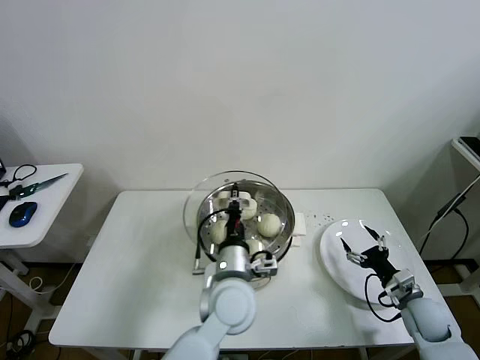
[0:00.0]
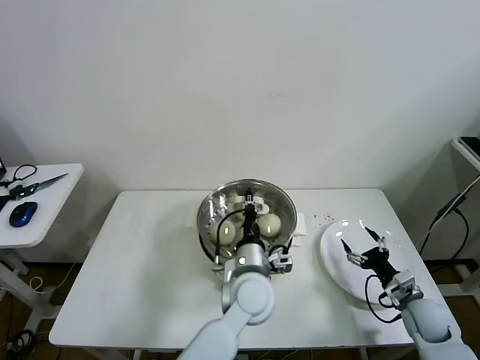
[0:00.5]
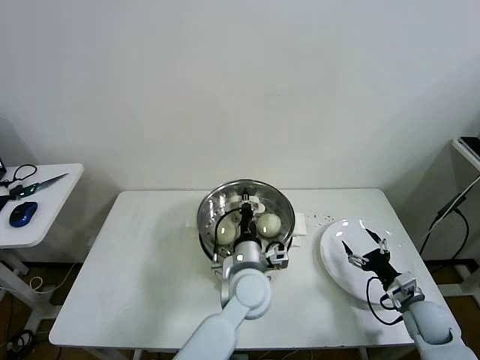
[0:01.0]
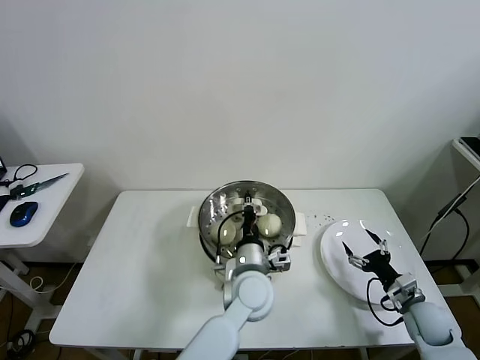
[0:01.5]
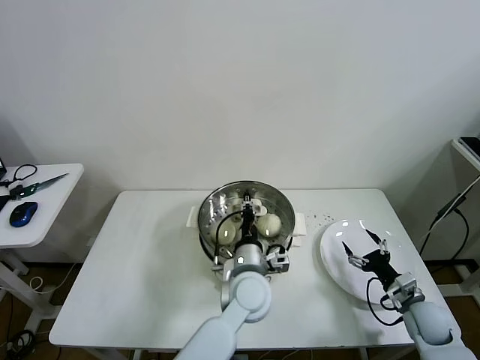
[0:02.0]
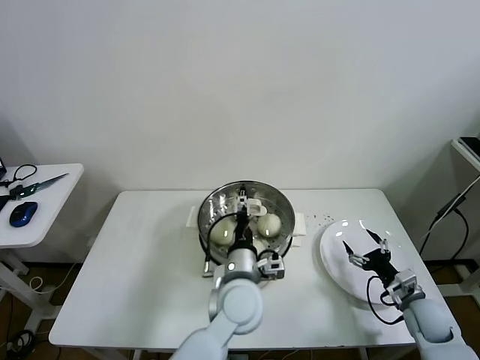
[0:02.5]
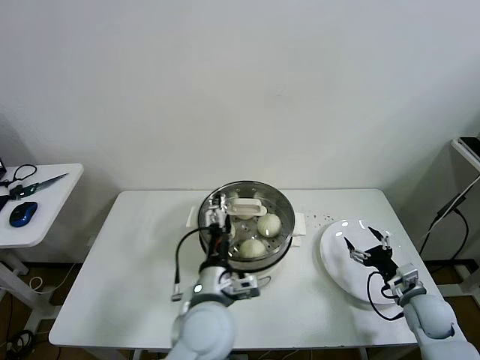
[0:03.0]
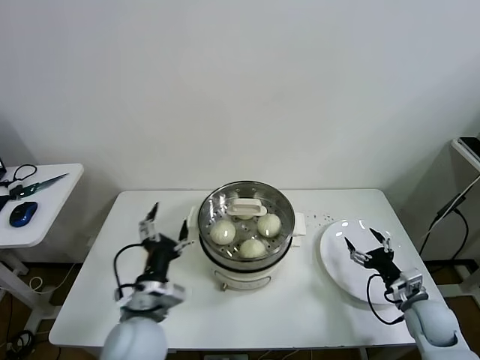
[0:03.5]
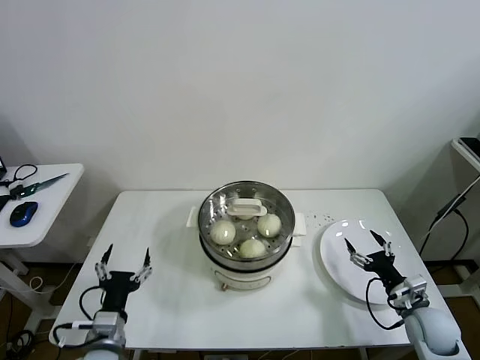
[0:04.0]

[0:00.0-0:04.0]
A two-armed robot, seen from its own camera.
Task of the whole recording: take steamed baozi put them in steamer then cover it.
Step, 0:00.0 to 0:02.0: Place the pot lid on the steamer with left gripper.
0:00.0 to 0:02.0: The left gripper moves roughly 5 cm.
0:02.0 to 0:04.0: The left gripper shifts approximately 30 cm to the left and backward, and opens up.

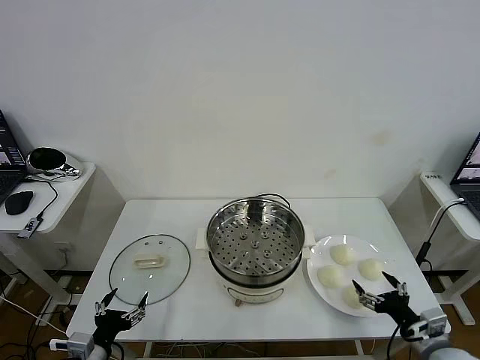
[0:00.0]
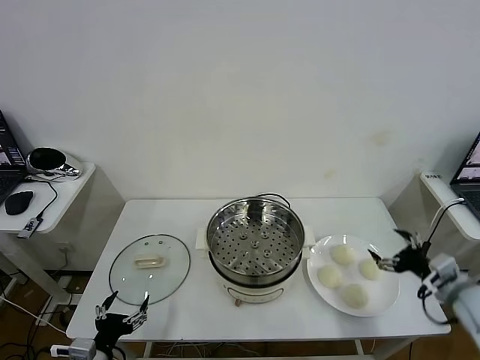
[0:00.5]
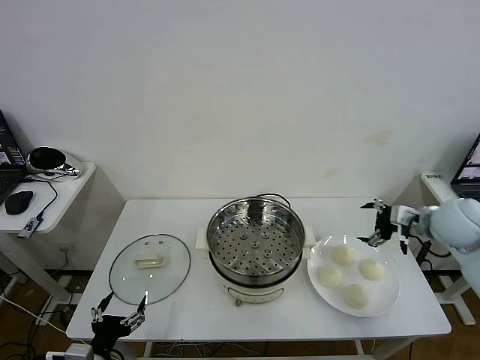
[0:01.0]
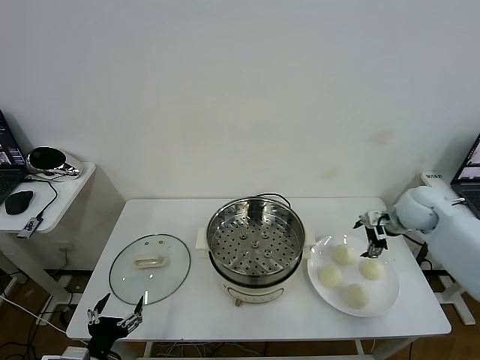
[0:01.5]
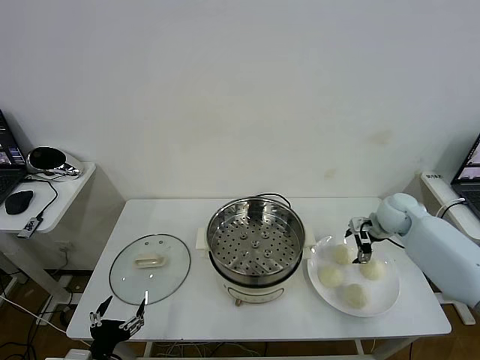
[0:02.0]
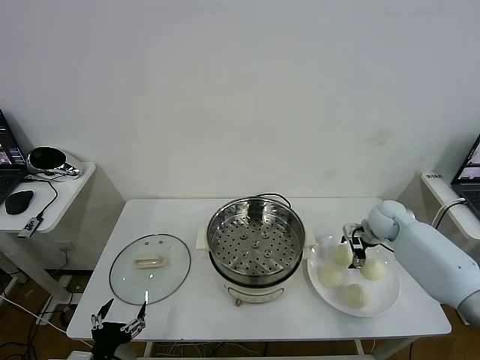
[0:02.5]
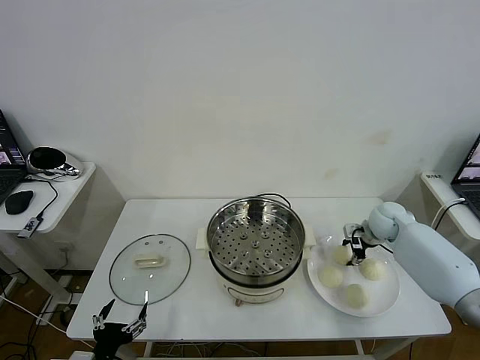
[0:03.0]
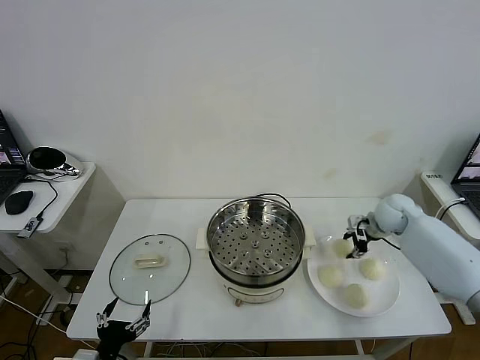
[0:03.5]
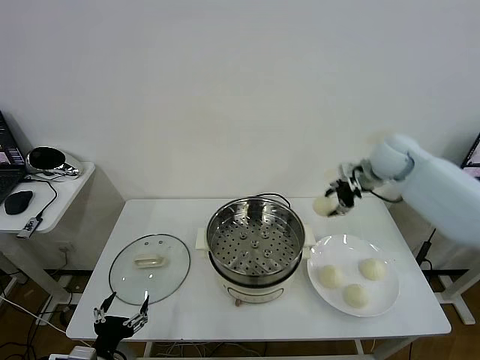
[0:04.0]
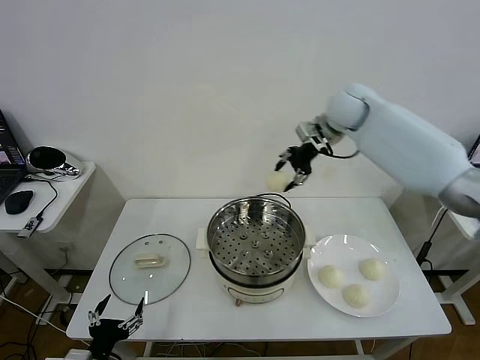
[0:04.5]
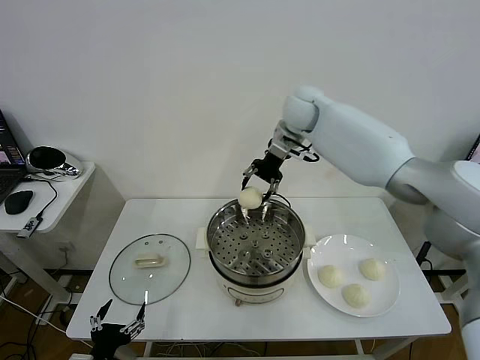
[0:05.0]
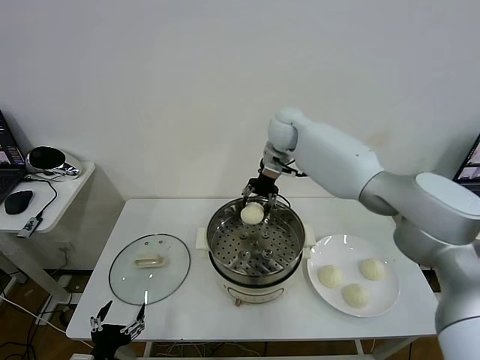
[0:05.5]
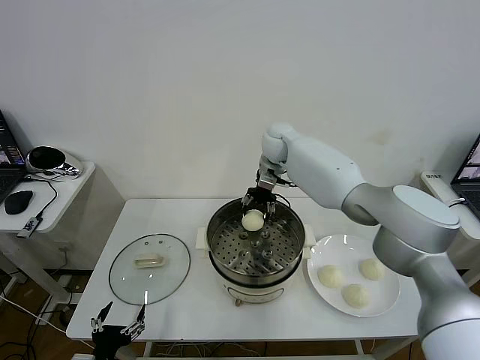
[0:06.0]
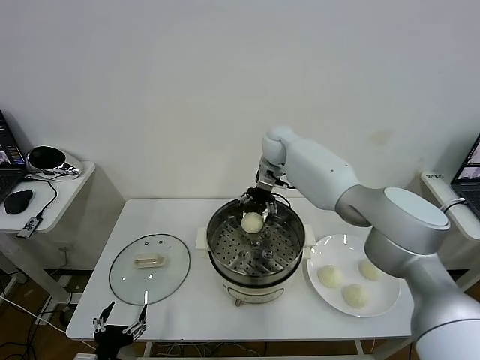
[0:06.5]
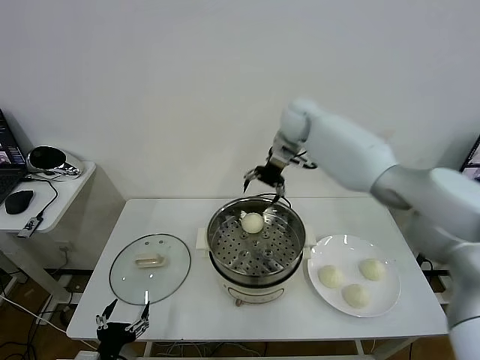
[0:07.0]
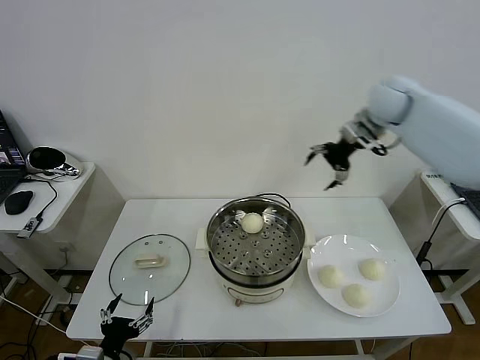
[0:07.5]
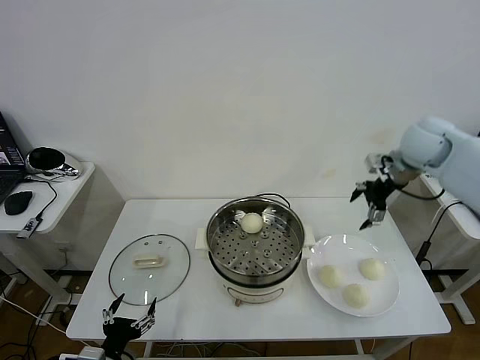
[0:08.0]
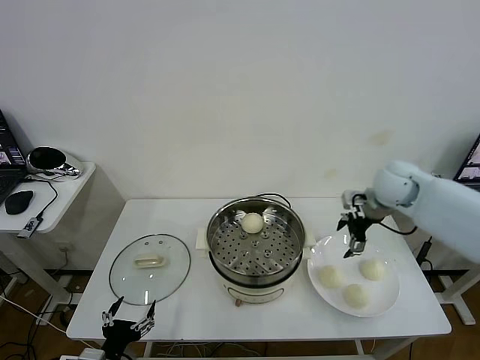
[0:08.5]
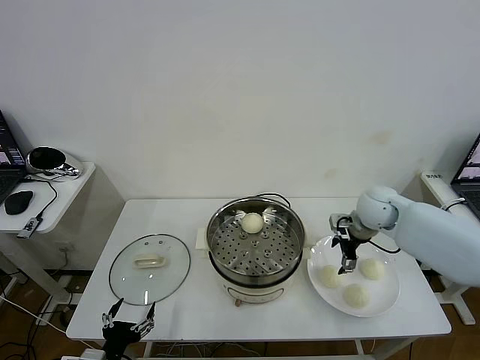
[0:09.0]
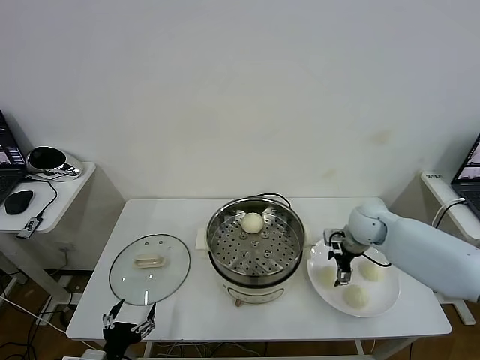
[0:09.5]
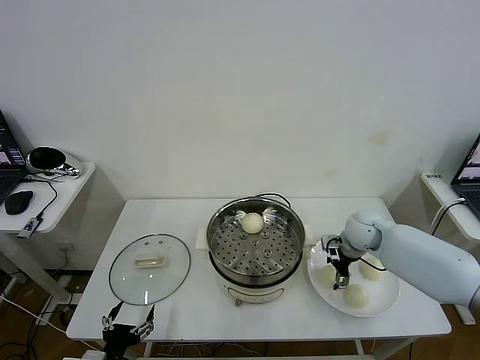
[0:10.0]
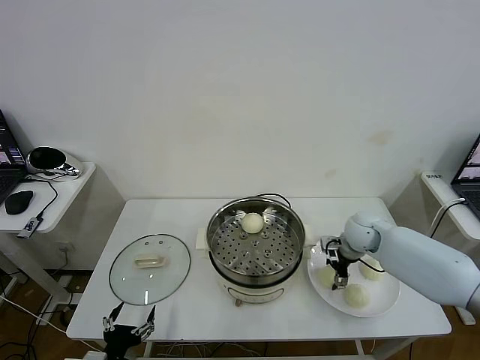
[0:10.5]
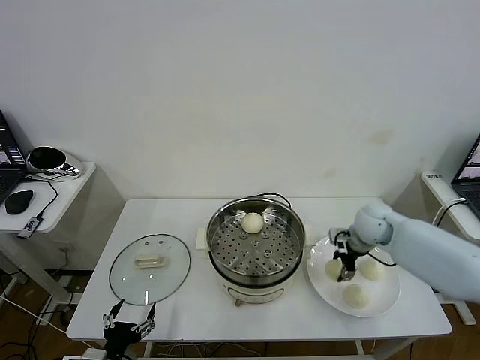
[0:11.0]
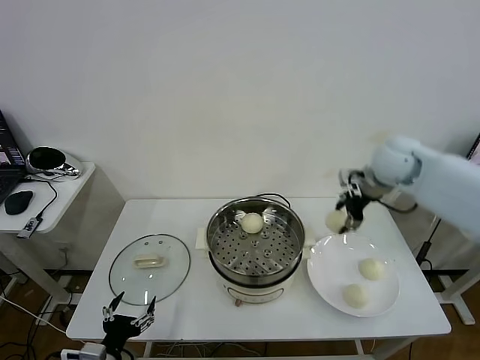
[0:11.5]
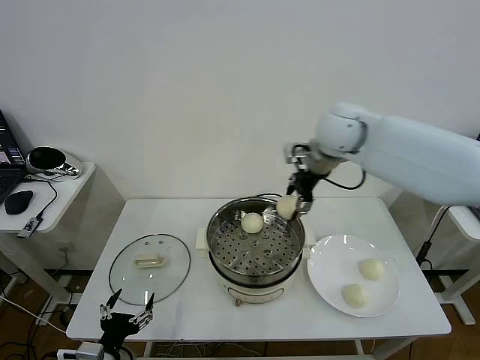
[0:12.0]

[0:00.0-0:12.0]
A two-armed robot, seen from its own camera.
Task of the whole recording: take steamed baozi put them in steamer then cover it.
Step, 0:00.0 to 0:03.0: Grasp the baozi in the plate with right gripper.
Step, 0:03.5 to 0:06.5: Place the baozi on the steamer with right gripper.
Step, 0:07.0 to 0:10.5: Grasp the baozi in the plate with right gripper.
0:02.0 to 0:04.0: The right gripper is displaced upward and to the left by approximately 25 cm, and closes up.
0:04.0 to 0:06.0: The right gripper is displaced to the left by about 20 cm.
0:06.0 to 0:08.0: The right gripper shifts some 30 cm to the right and backward, and opens its fingers.
0:08.0 to 0:10.0: The right gripper travels downward by approximately 20 cm.
0:10.0 to 0:12.0: The right gripper shifts about 30 cm upward and to the left, and closes.

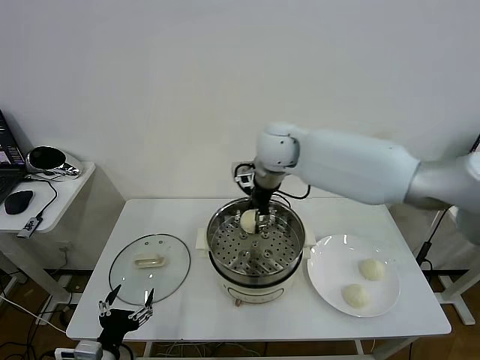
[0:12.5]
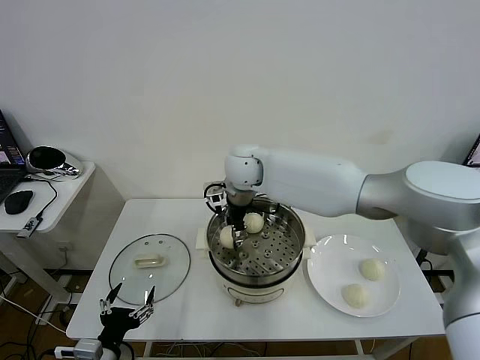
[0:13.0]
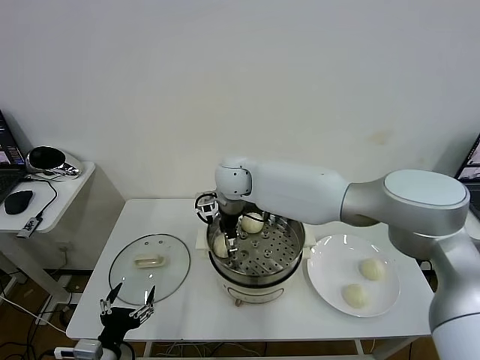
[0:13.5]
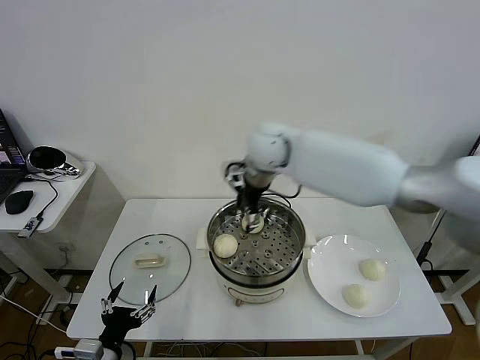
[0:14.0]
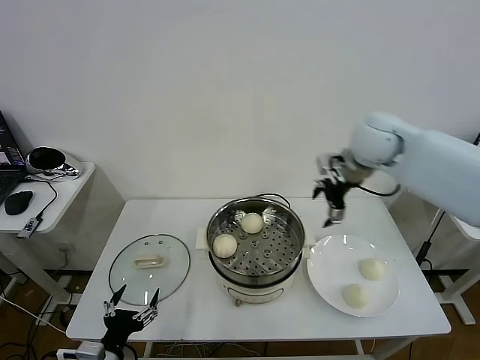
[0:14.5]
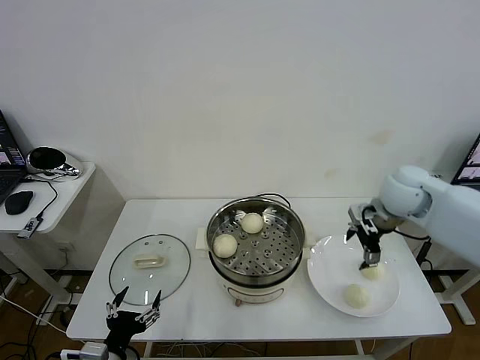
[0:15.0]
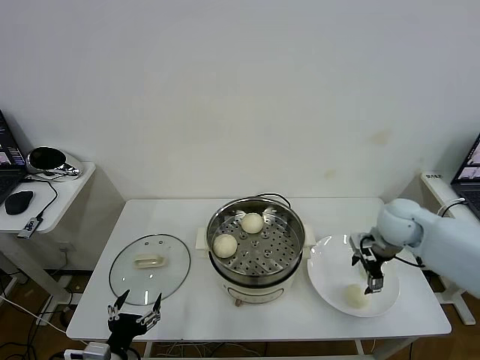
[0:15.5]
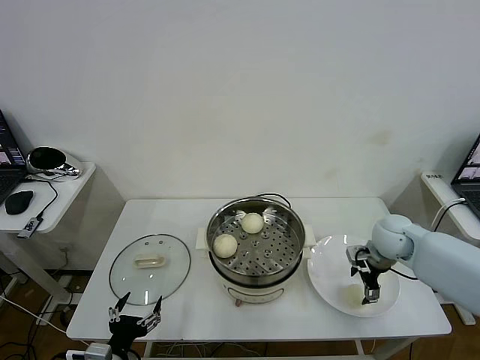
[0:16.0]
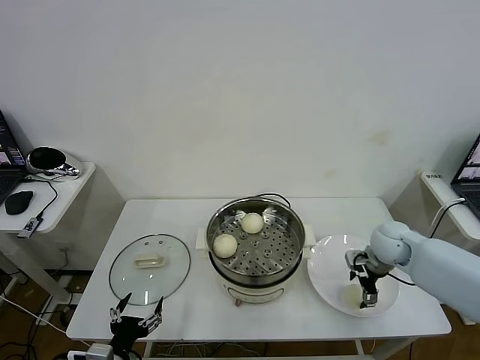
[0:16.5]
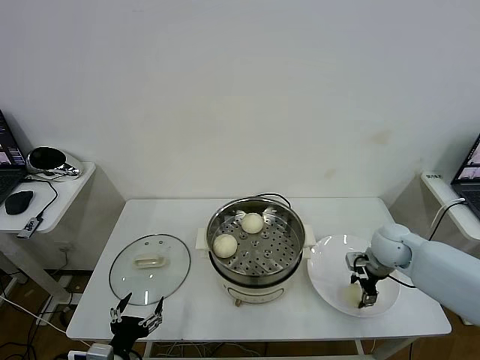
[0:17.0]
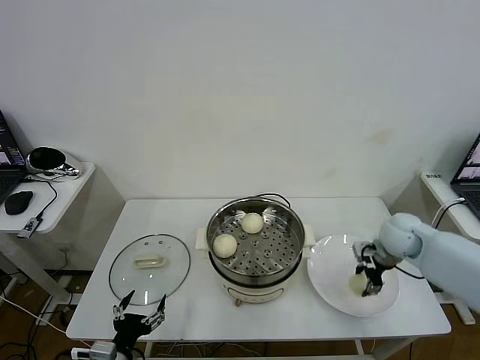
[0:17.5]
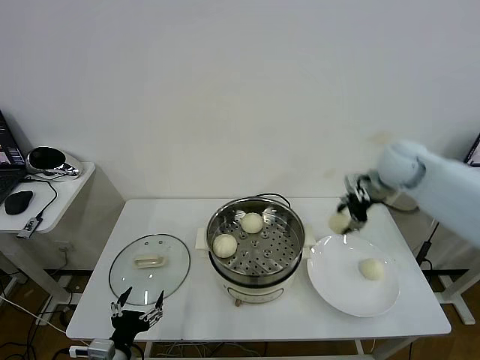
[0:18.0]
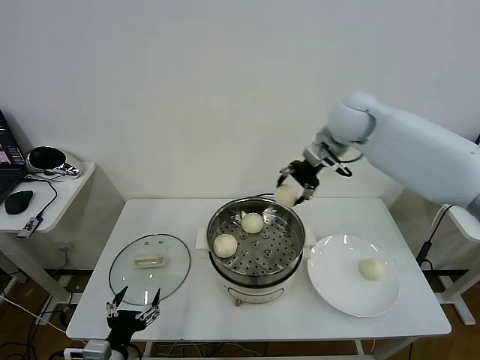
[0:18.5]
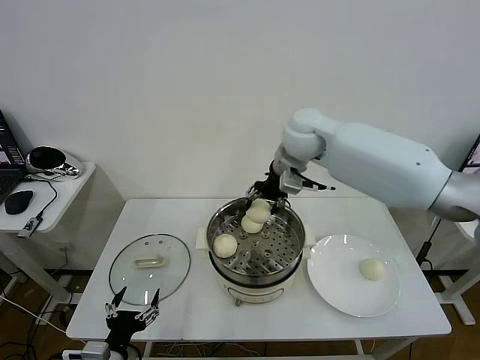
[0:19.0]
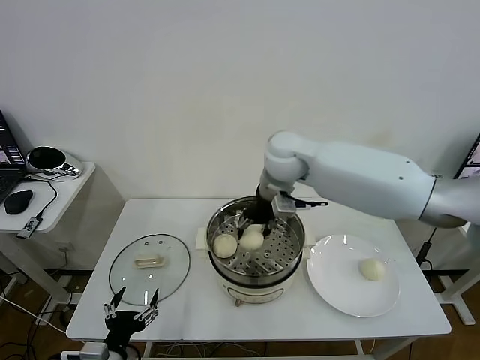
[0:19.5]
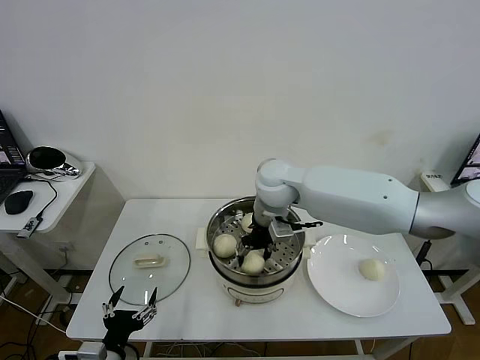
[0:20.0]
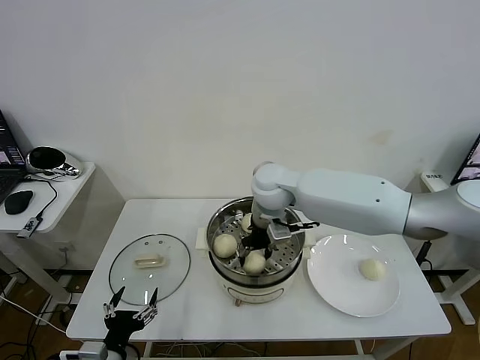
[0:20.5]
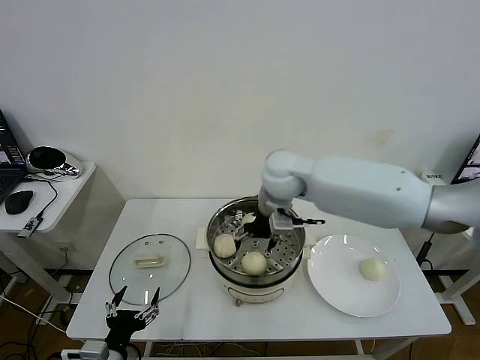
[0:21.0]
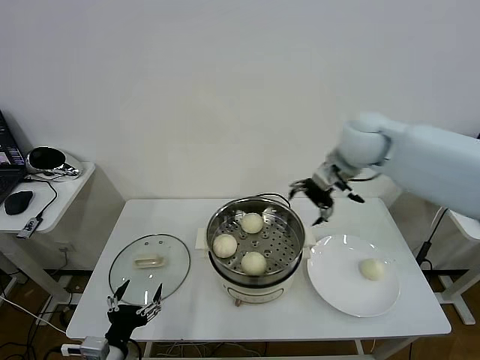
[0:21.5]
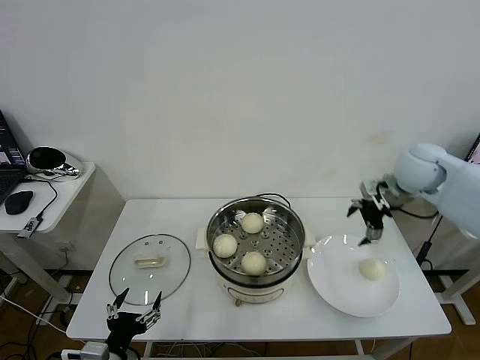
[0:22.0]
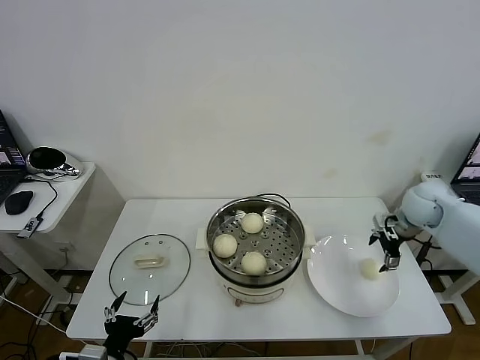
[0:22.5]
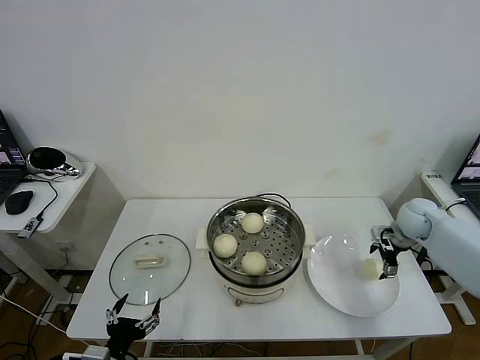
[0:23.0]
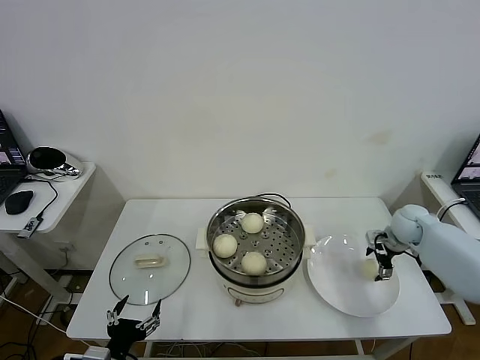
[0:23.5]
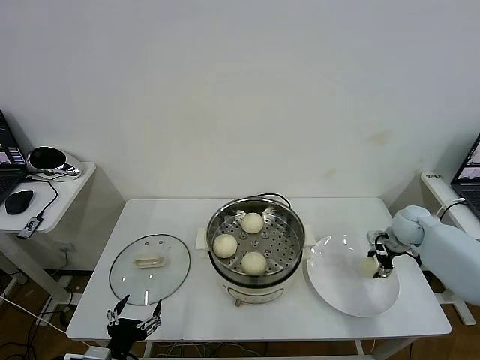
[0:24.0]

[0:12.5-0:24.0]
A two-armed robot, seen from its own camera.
Task of the whole recording: take steamed baozi put them in steamer then cover it.
Step, 0:14.0 to 0:17.0: Grasp the baozi in the plate with right gripper.
Step, 0:17.5 to 0:20.5: Place the baozi on the steamer with right gripper.
0:12.5 to 0:14.5: The right gripper goes roughly 25 cm to the right, and opens its fingers.
0:14.5 to 0:16.5: The right gripper is displaced downward by approximately 20 cm.
0:16.5 to 0:18.5: The right gripper travels upward, to the left and forward by some 30 cm, and closes its fingers.
0:18.5 to 0:20.0: The right gripper goes roughly 20 cm to the left, downward and backward.
0:20.0 to 0:22.0: The right gripper heads to the right, covering roughly 30 cm, and opens up.
0:22.0 to 0:24.0: The right gripper goes roughly 20 cm downward, and closes its fingers.
